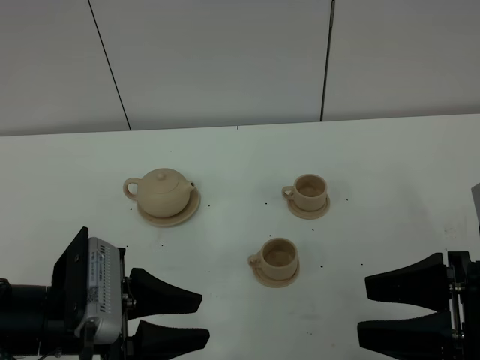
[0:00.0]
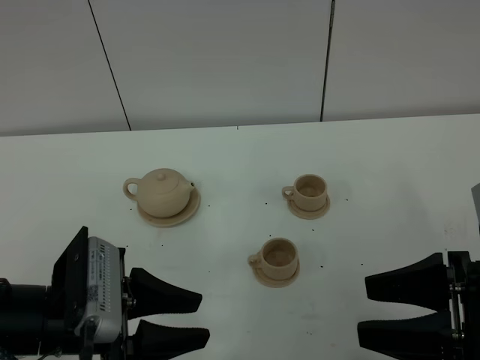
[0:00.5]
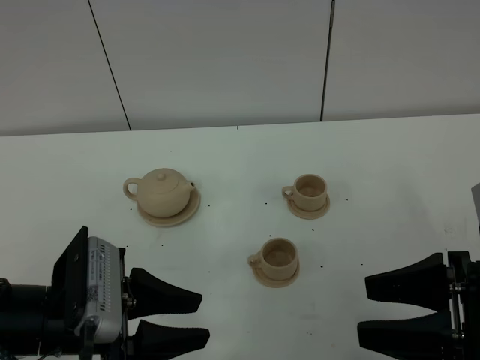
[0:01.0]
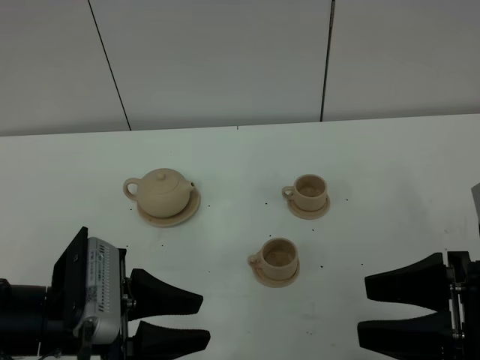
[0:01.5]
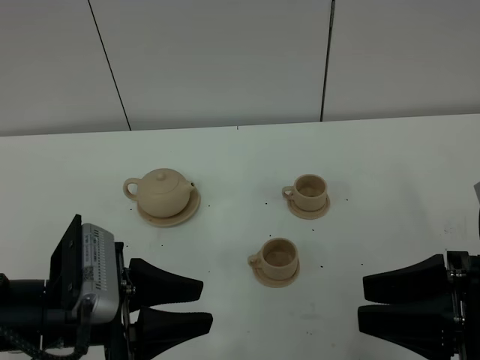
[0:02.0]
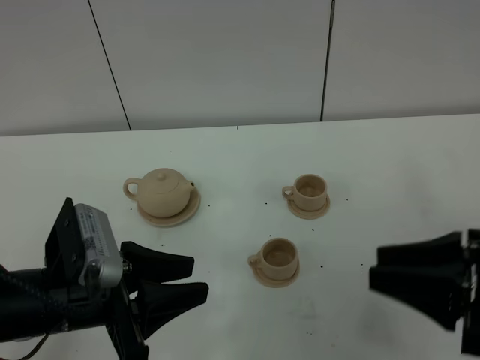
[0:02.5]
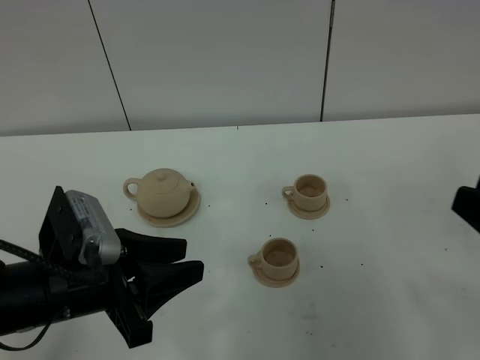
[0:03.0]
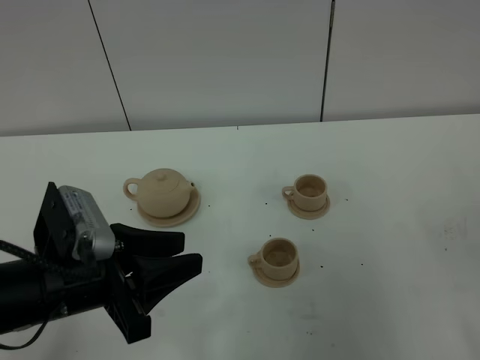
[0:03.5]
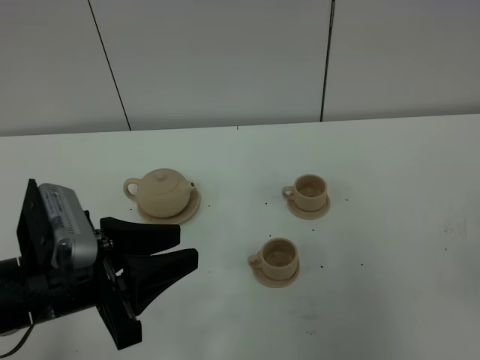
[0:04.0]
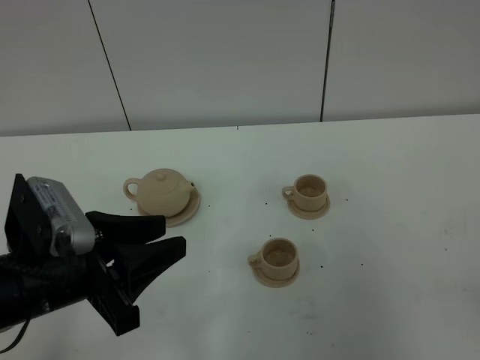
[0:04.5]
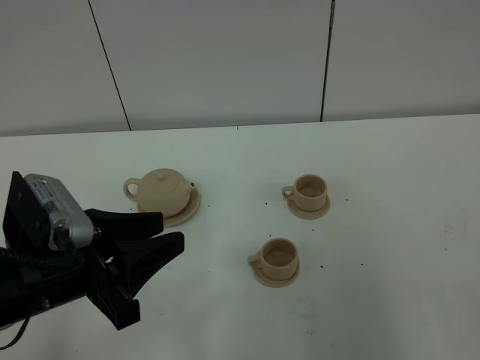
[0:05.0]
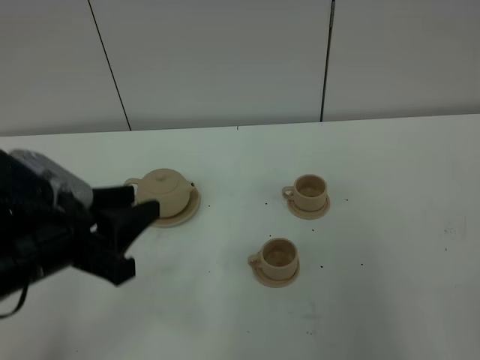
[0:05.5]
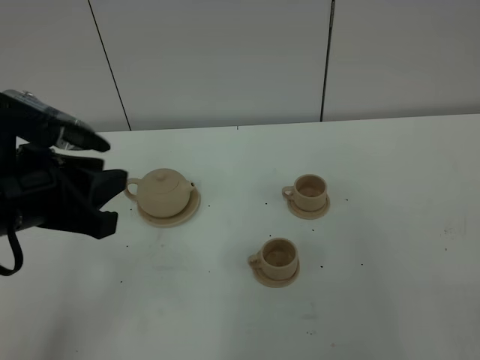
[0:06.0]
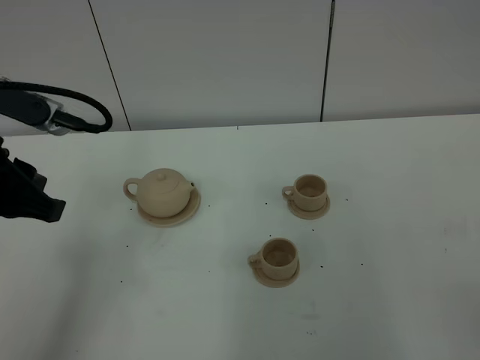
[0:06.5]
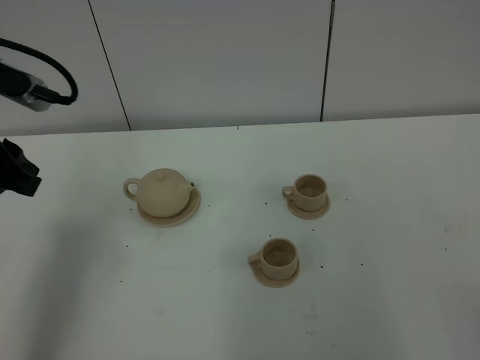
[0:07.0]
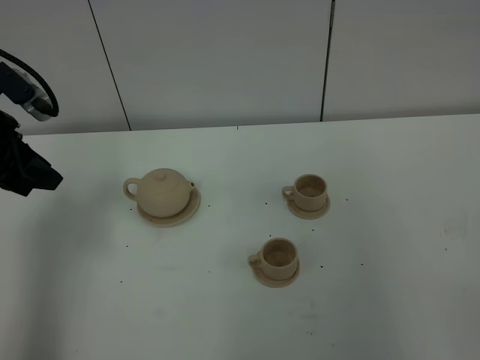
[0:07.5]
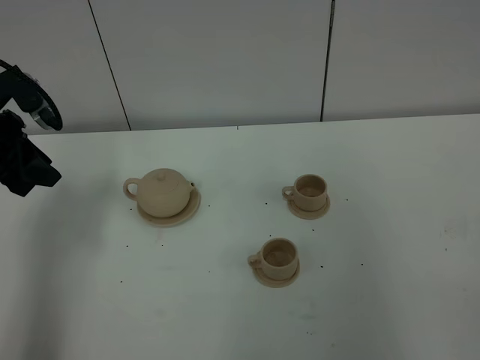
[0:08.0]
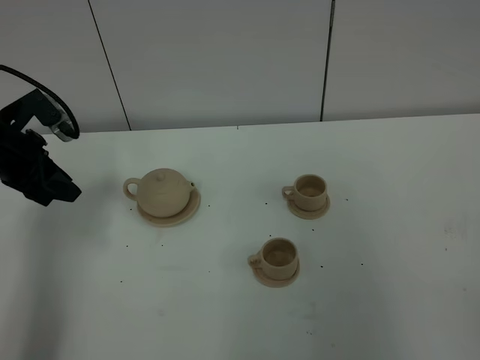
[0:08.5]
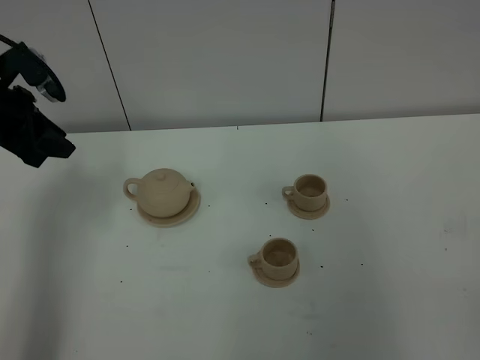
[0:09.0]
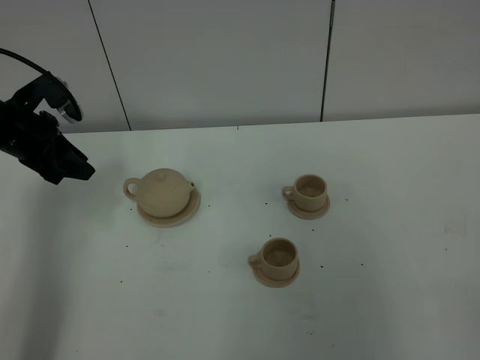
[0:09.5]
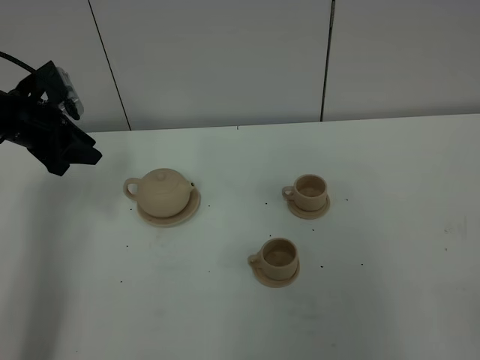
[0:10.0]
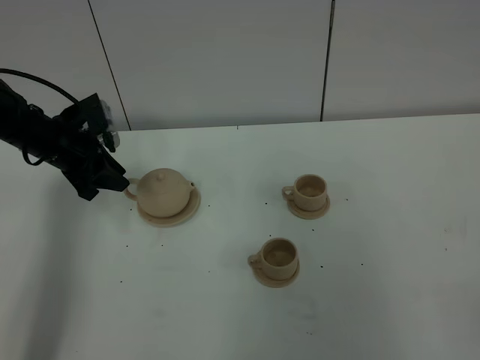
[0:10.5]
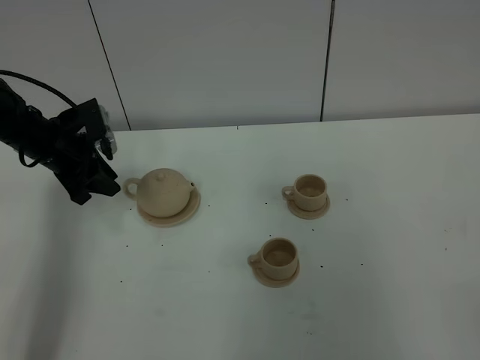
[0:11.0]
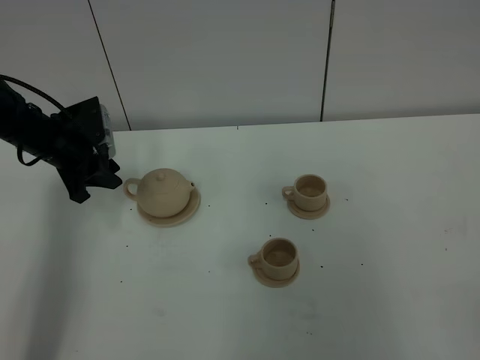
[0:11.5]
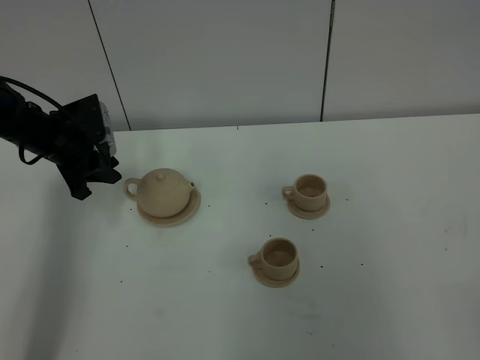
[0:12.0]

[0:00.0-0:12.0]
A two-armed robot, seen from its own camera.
Task of the whole recording: grasp the brown teapot and pour the tea into the two brown teacups one by one, put the brown teapot back in its original place.
0:00.0 to 0:02.0: The grippers move only a little.
0:02.0 to 0:04.0: The right gripper travels backward, to the right and upward by approximately 15 cm.
0:04.0 to 0:06.0: The left gripper travels upward and forward by about 10 cm, while the right gripper ends up roughly 5 cm from where it was.
0:06.0 to 0:08.0: The left gripper travels forward and to the left by roughly 20 cm.
0:08.0 to 0:10.0: The left gripper shifts roughly 10 cm forward and downward.
0:10.0 to 0:12.0: The left gripper shifts by approximately 5 cm.

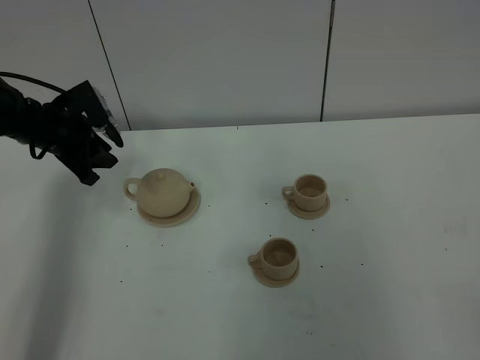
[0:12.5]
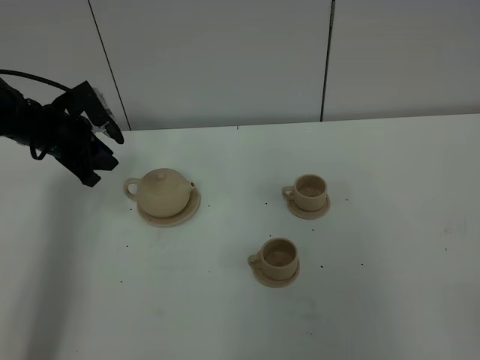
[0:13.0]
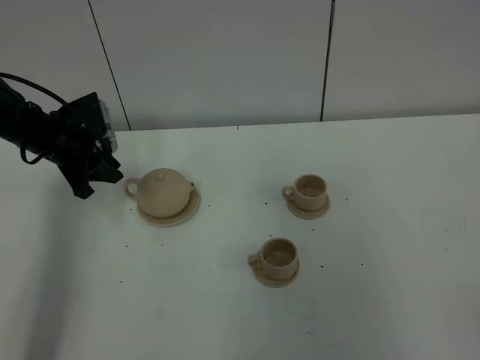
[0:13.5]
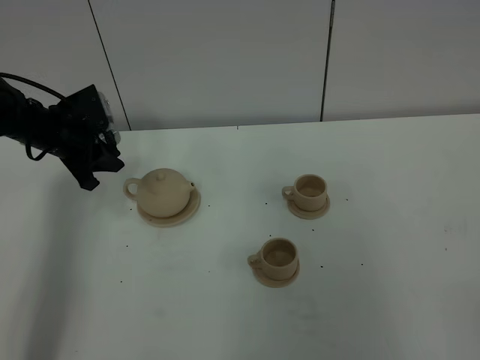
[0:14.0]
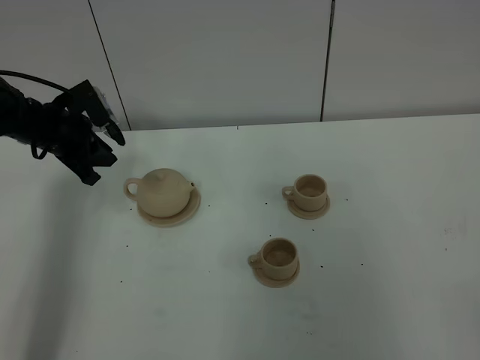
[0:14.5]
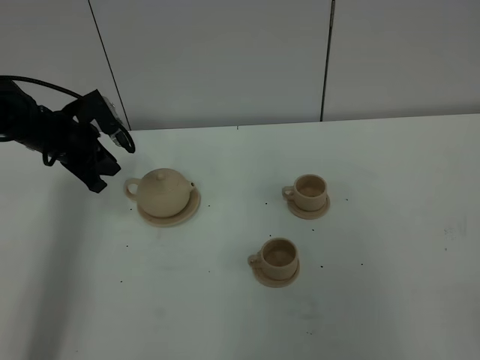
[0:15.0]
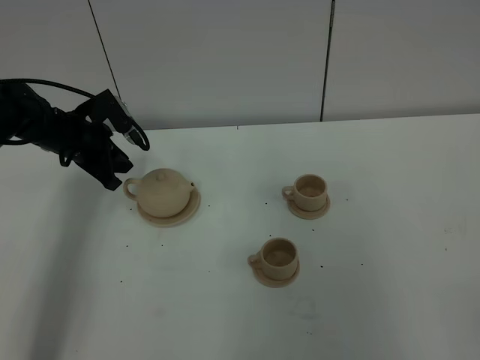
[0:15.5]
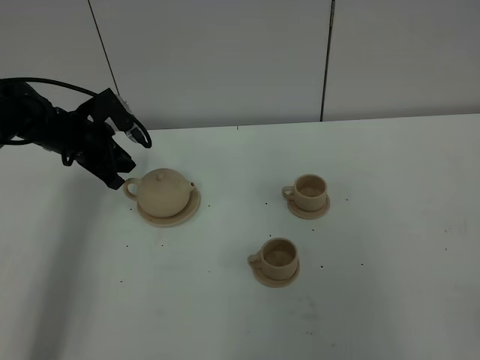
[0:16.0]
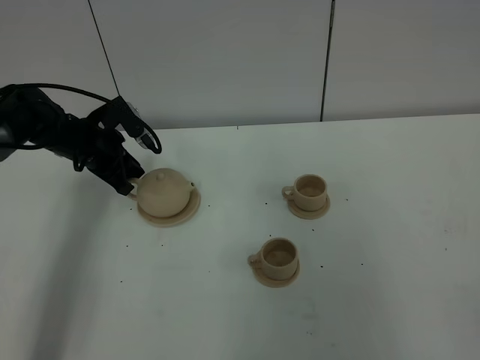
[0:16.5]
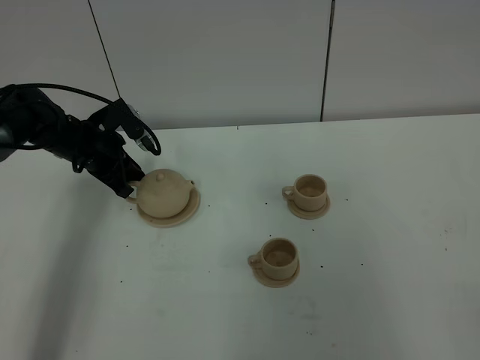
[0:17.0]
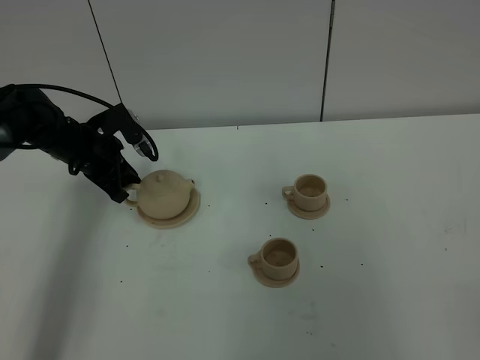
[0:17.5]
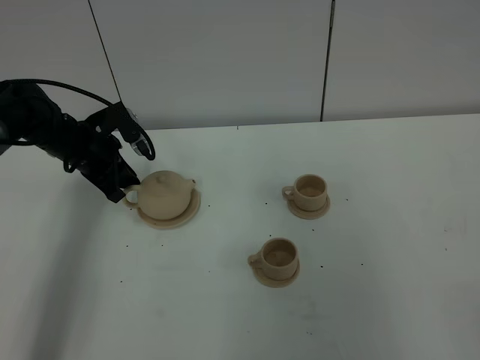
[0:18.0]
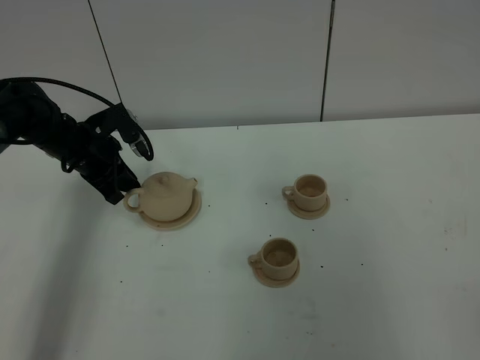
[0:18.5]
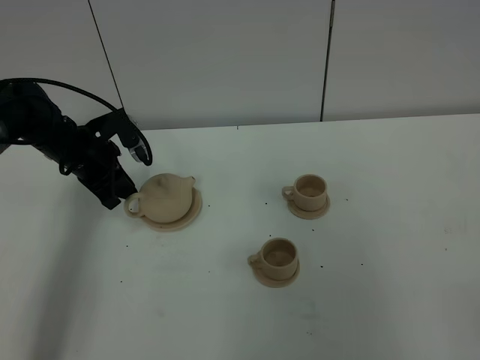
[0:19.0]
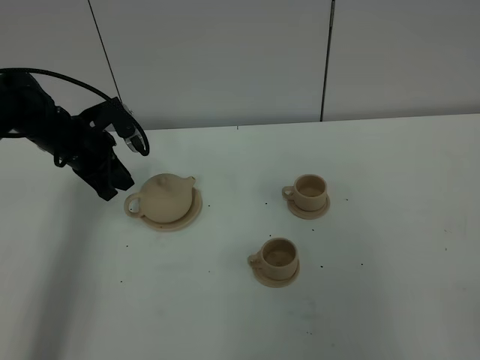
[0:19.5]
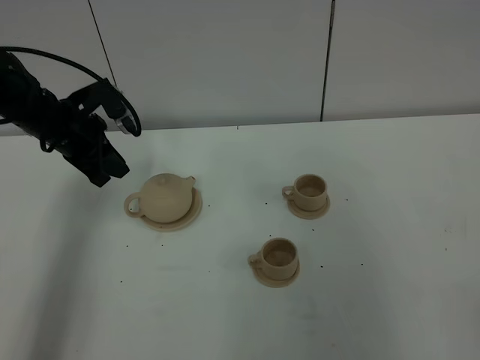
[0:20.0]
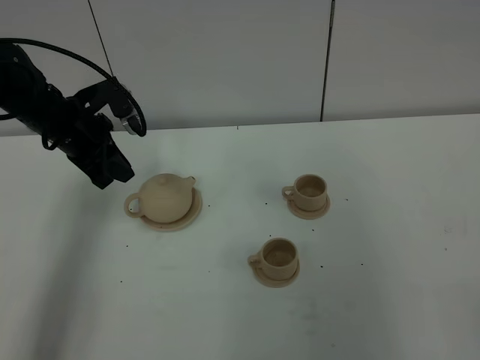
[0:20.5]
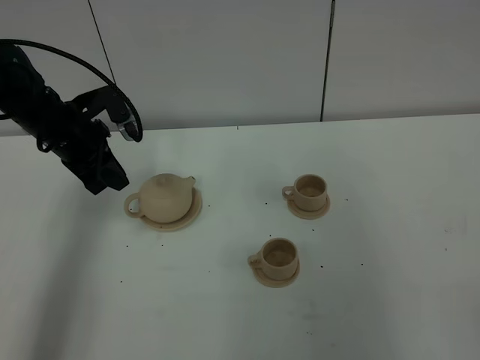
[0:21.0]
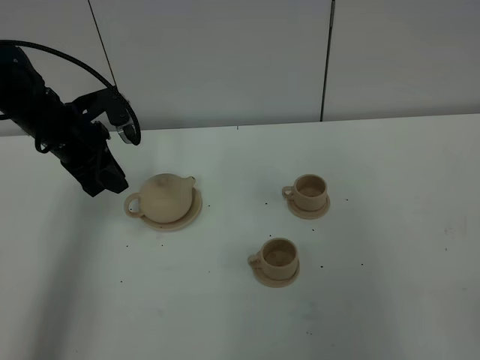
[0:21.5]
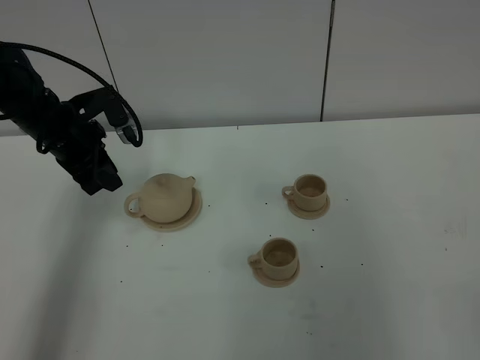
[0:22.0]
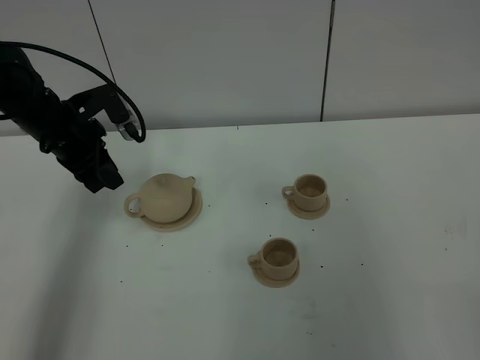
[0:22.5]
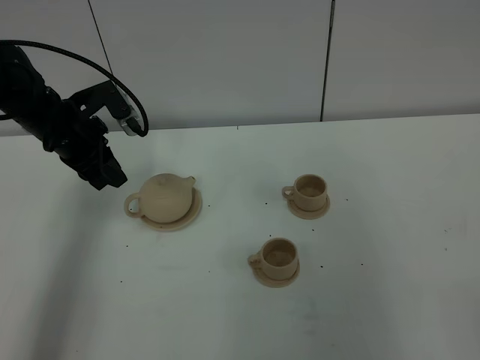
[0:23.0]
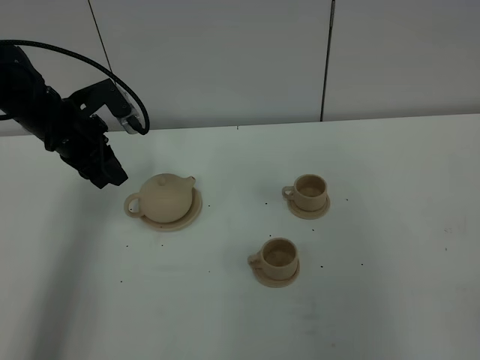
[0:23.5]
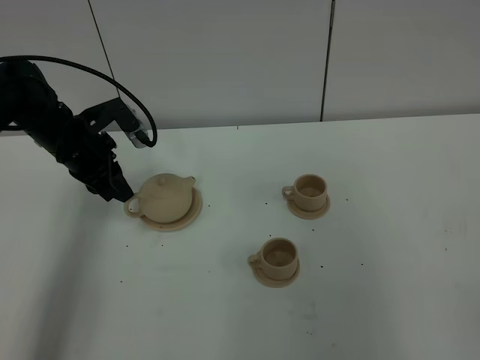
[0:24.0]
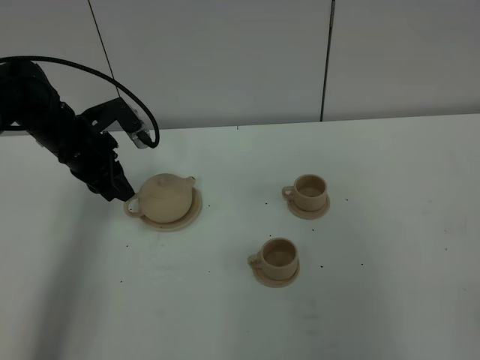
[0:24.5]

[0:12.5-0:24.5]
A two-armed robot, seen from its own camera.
Task of the whole recording: grasp the brown teapot and pour the tea into the two brown teacups one by one, put the brown teapot back in its original place.
0:14.5 to 0:16.5: The left gripper ends up some 5 cm from where it was.
0:16.5 to 0:18.5: There are only small adjustments of the grippers.
0:18.5 to 0:20.5: The left gripper shifts some 5 cm upward.
0:20.5 to 0:22.5: The left gripper opens its fingers.
0:22.5 to 0:24.5: The grippers move only a little.

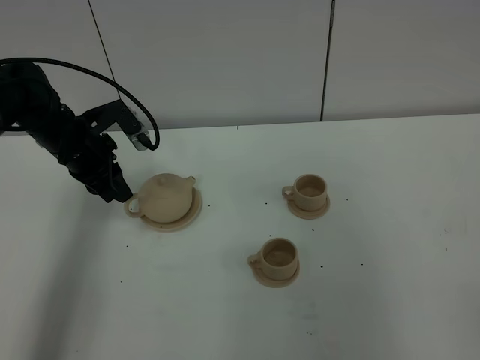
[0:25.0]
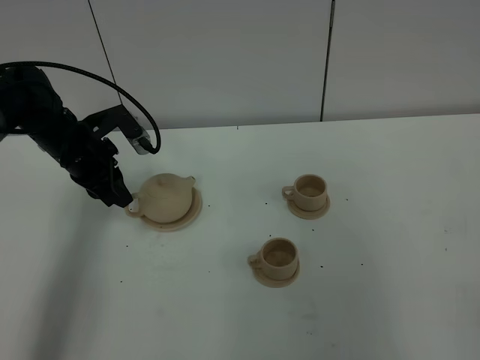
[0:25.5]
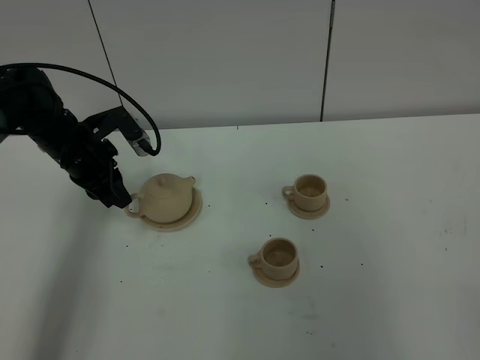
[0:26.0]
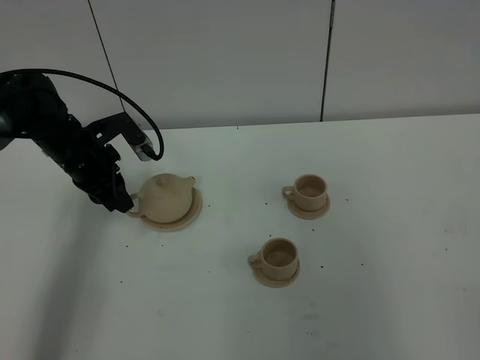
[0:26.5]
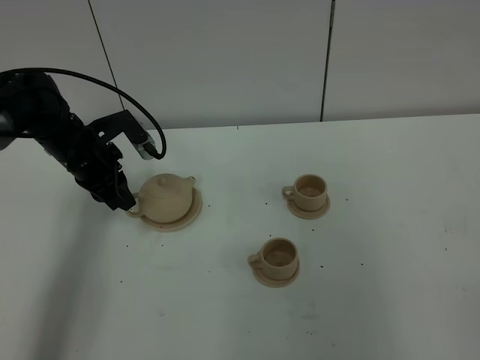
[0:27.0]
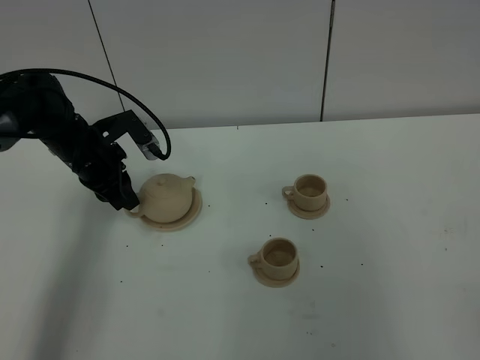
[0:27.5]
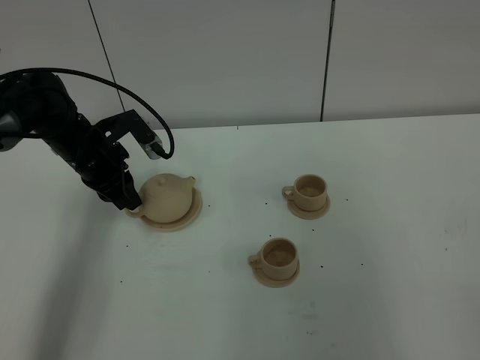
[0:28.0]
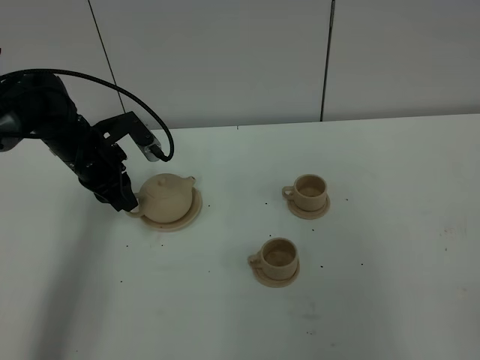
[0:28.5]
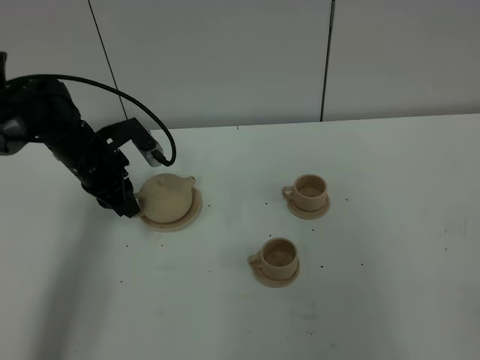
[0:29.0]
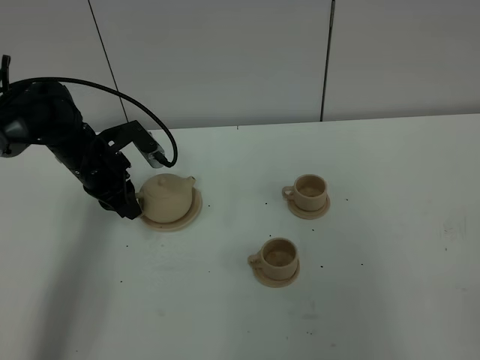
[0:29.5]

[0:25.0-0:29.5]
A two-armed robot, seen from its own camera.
Task of the whole recording: grasp the brown teapot and pour the tea into the two brown teacups one by one, put the brown teapot back in its original place.
0:25.0 to 0:29.5: The grippers stay close to where they were, moving slightly.
